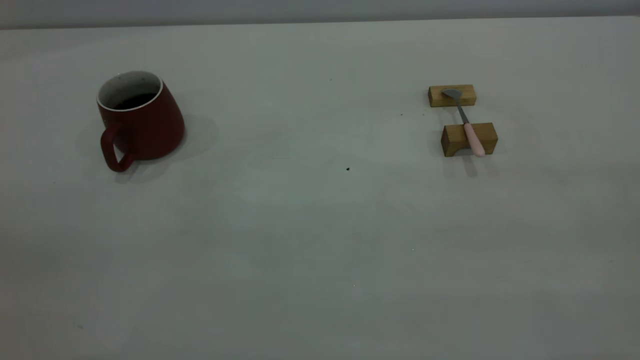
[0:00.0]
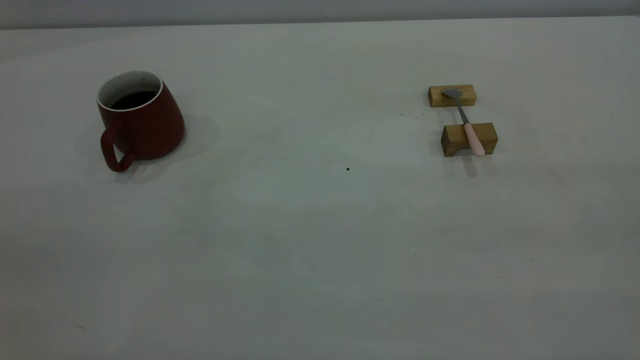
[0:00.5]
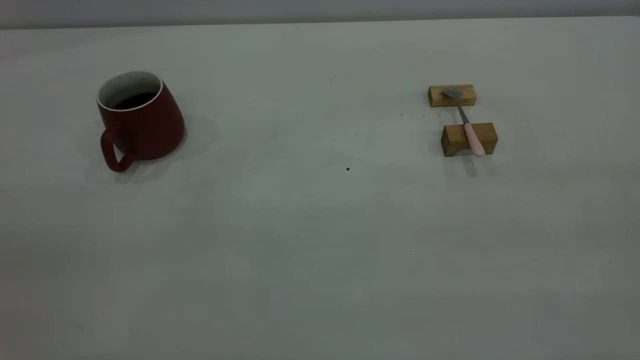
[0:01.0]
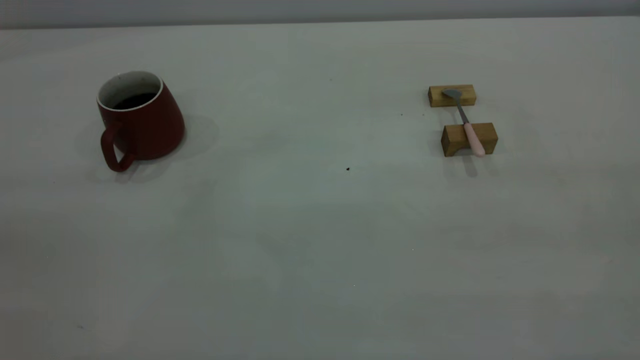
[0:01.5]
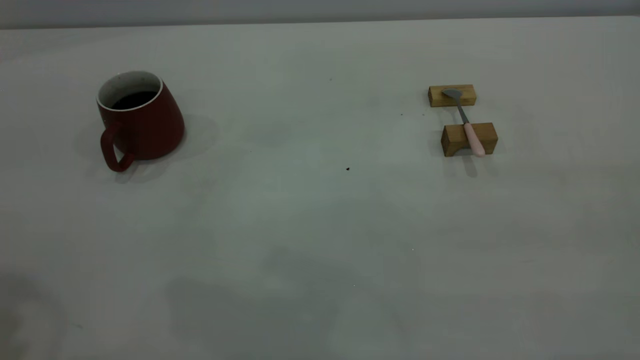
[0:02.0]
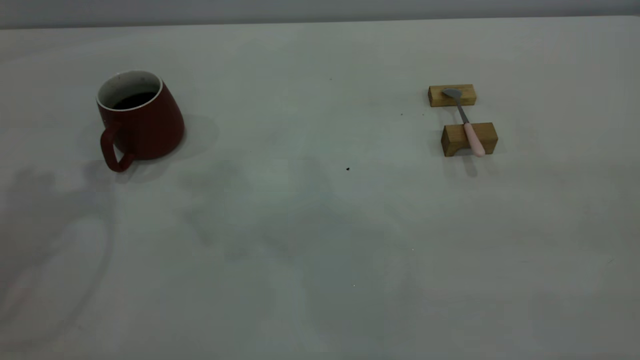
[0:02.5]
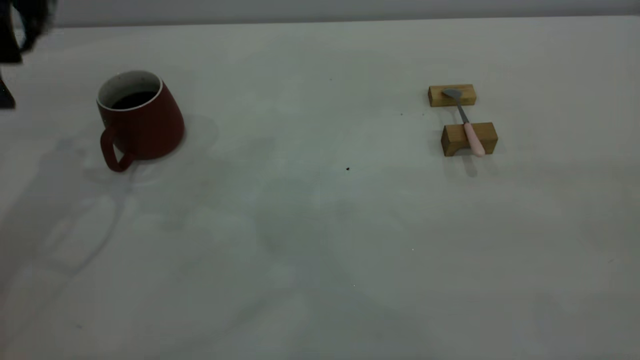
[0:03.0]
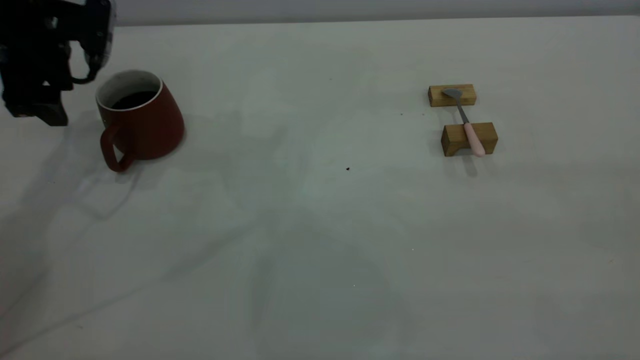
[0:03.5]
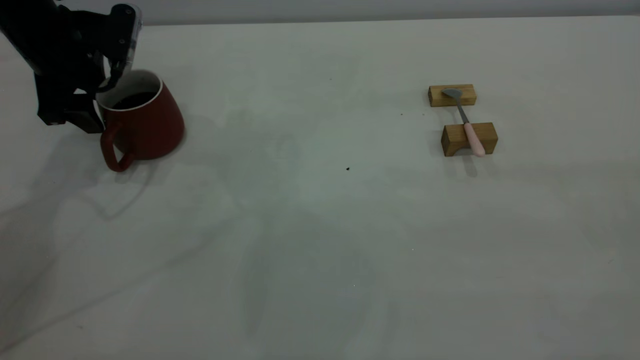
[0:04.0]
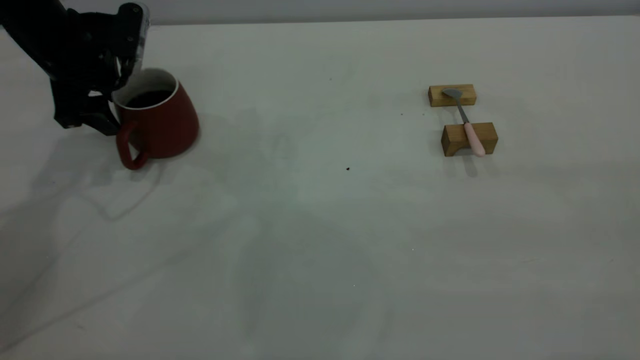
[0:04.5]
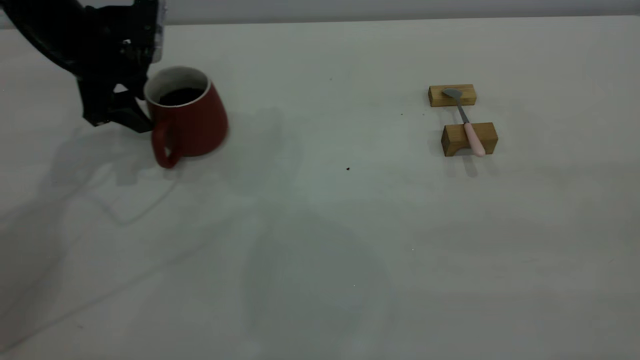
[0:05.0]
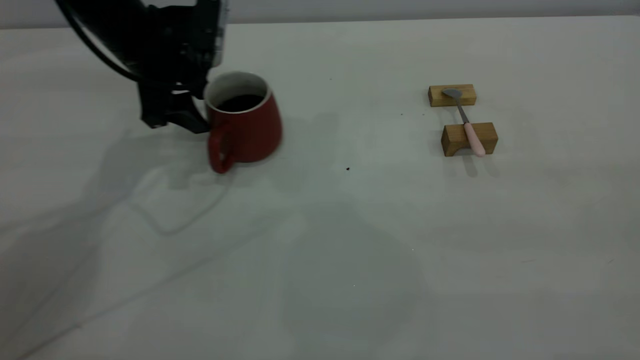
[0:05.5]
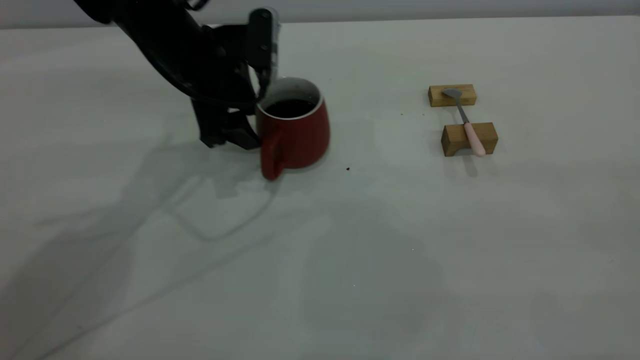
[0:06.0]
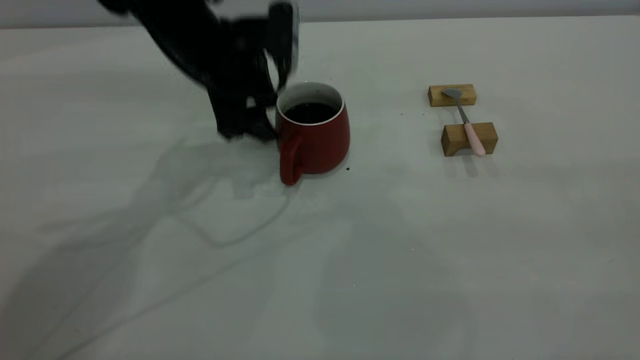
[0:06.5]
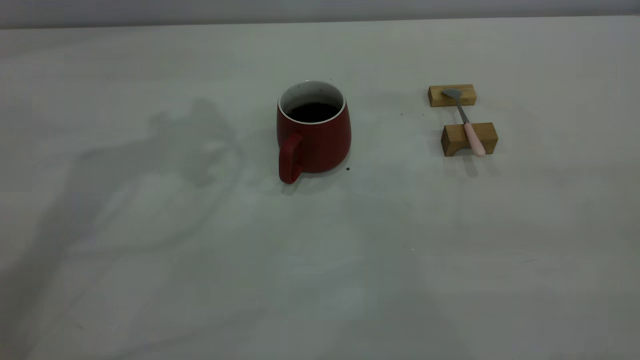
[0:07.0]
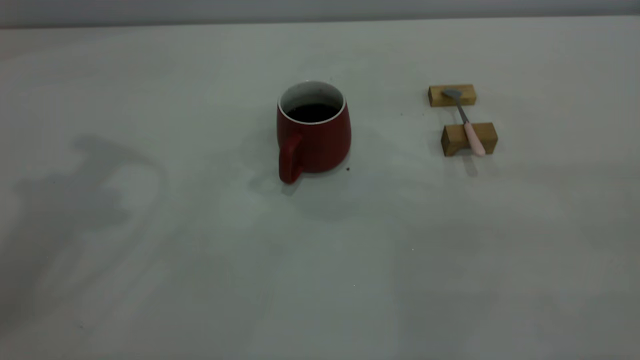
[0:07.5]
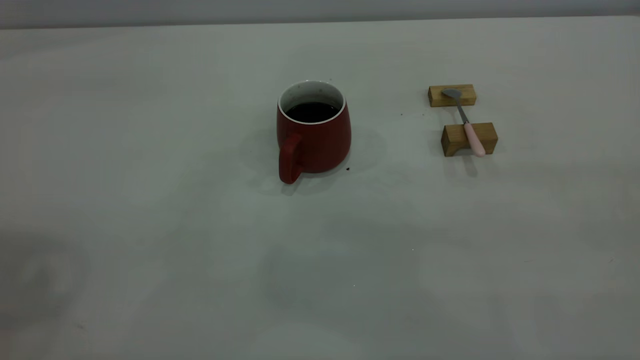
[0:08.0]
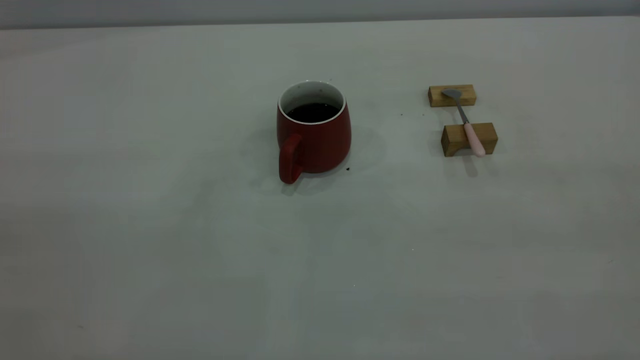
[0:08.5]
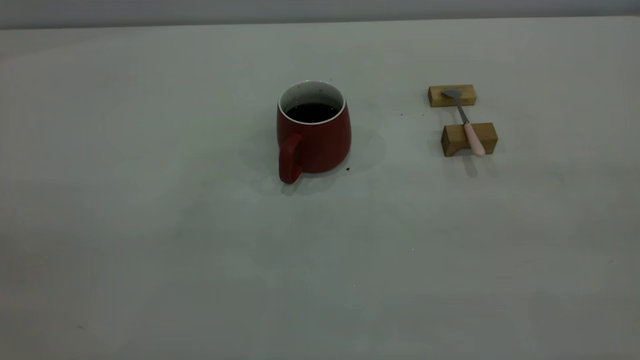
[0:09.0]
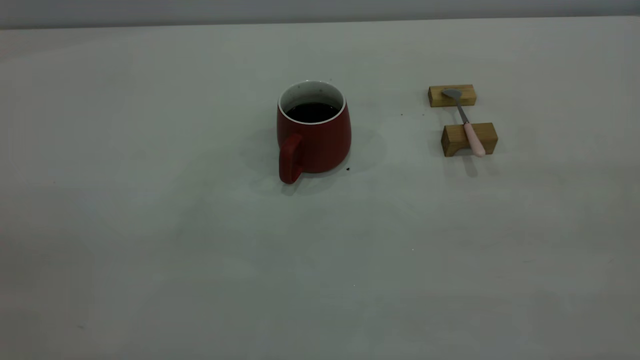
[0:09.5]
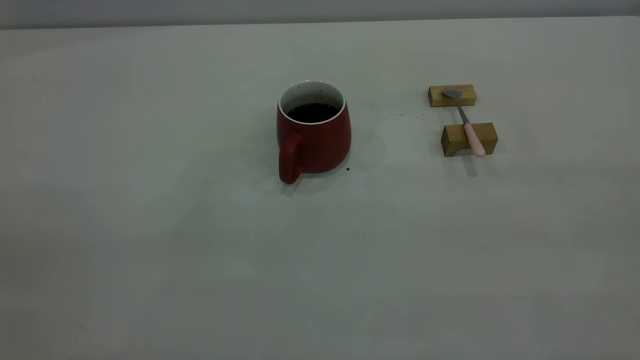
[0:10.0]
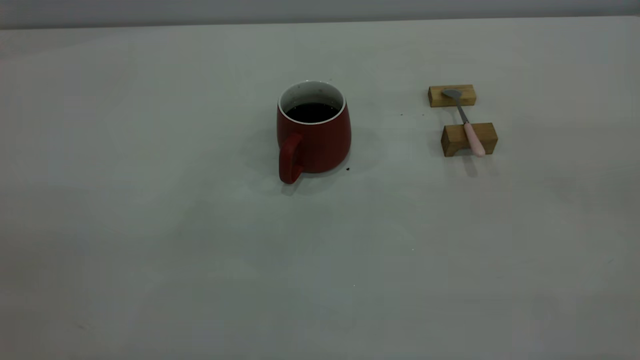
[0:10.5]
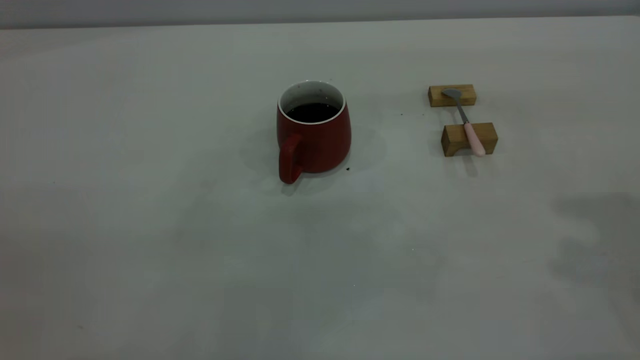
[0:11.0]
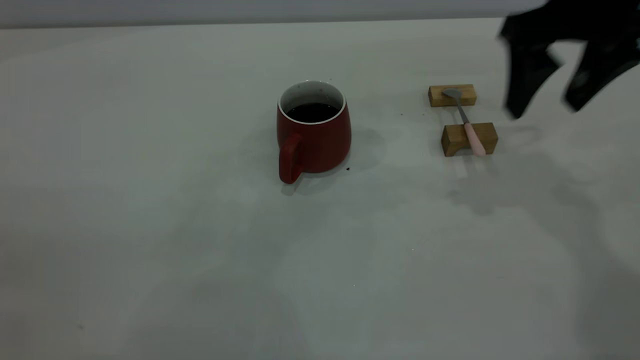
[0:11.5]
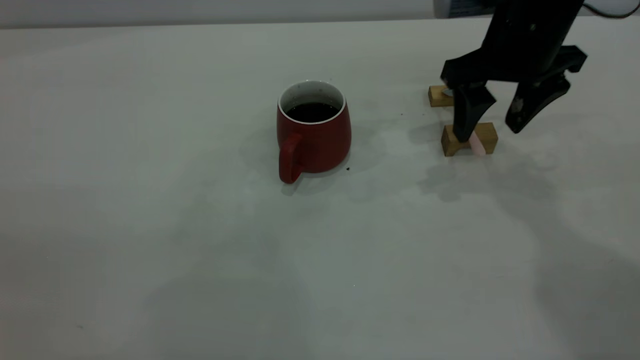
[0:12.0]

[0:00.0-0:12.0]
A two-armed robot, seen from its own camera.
Step, 0:00.0 to 0:06.5: Move the cup with coffee to the center of view.
0:02.0 to 0:04.0: The left gripper shifts approximately 35 cm forward and downward.
0:04.0 to 0:06.0: The left gripper moves to the right, some 15 cm.
0:06.0 to 0:08.0: The left gripper goes some 40 cm upward and backward.
0:10.0 to 0:12.0: The right gripper goes some 40 cm forward and downward, and opens.

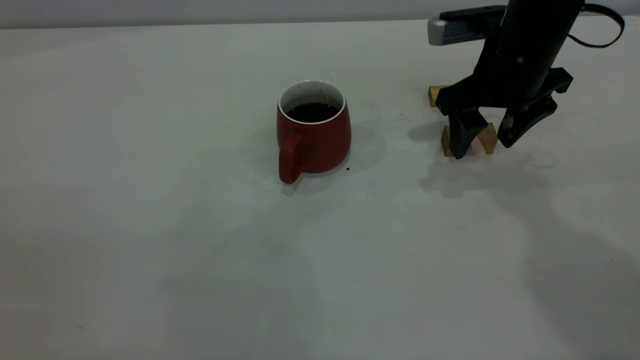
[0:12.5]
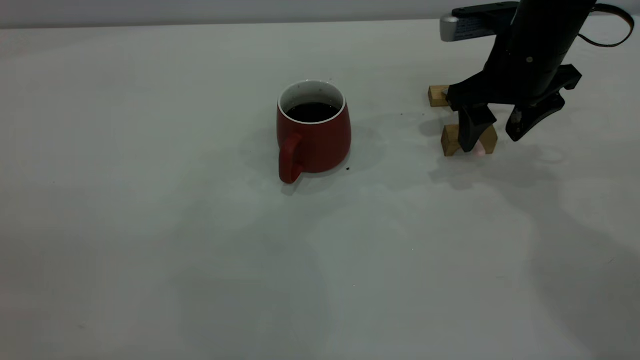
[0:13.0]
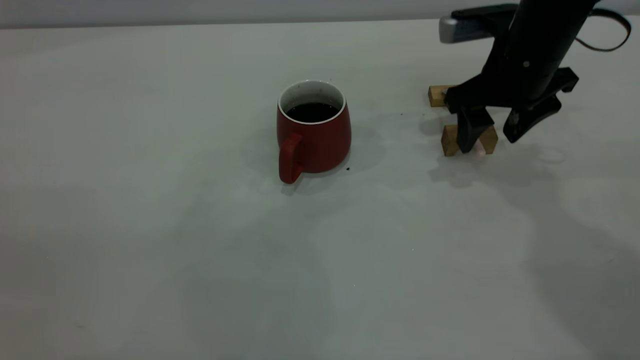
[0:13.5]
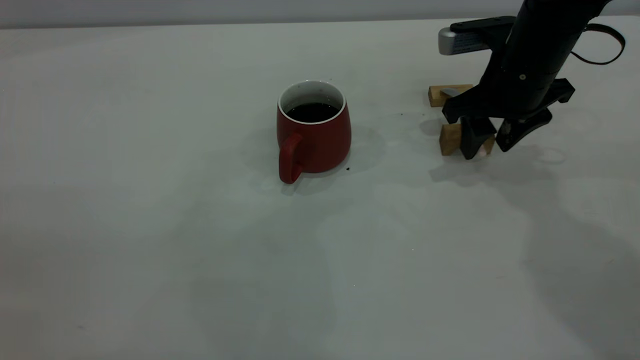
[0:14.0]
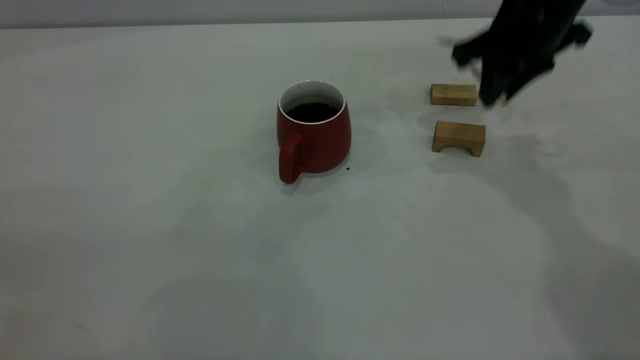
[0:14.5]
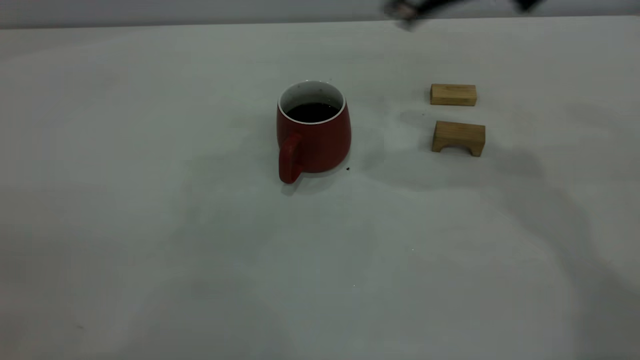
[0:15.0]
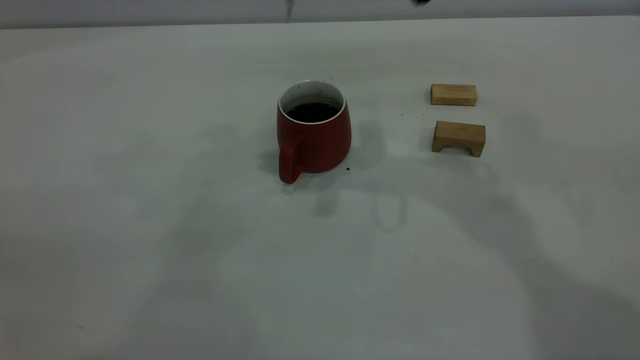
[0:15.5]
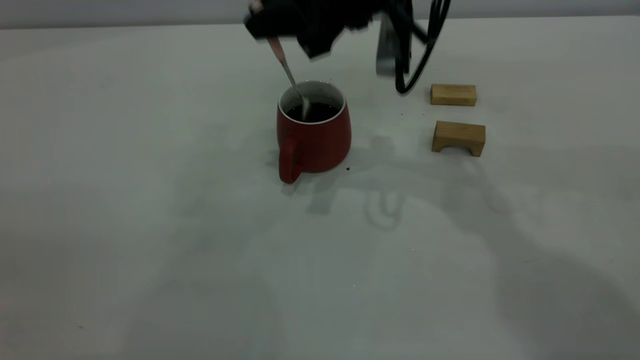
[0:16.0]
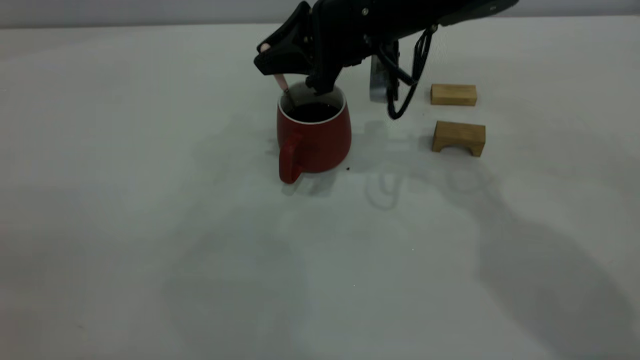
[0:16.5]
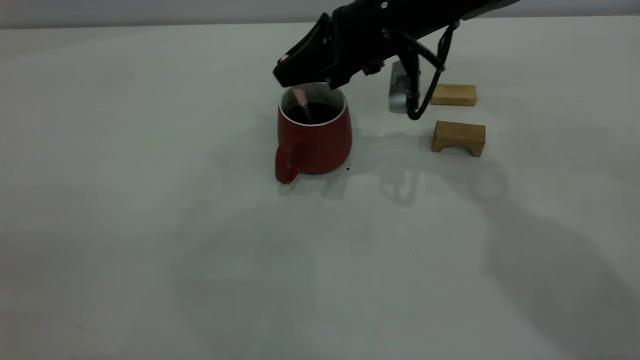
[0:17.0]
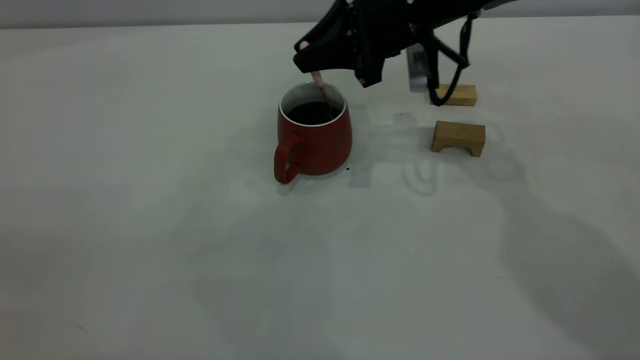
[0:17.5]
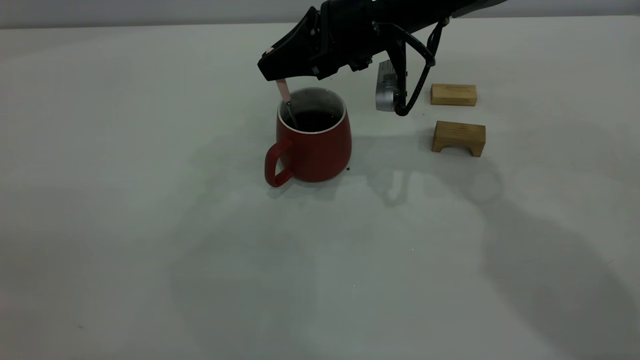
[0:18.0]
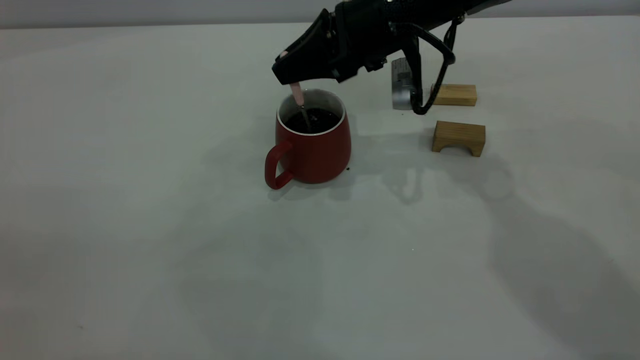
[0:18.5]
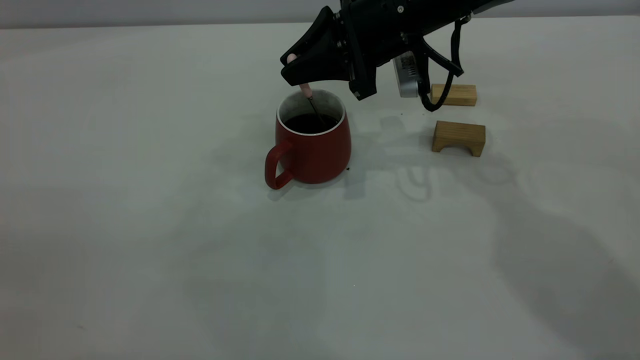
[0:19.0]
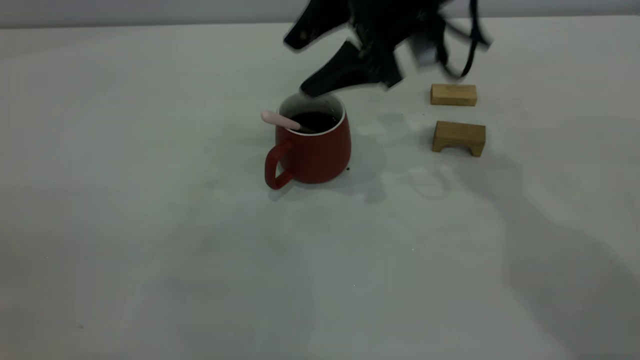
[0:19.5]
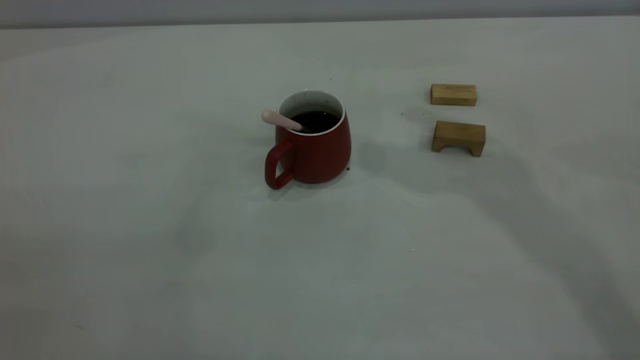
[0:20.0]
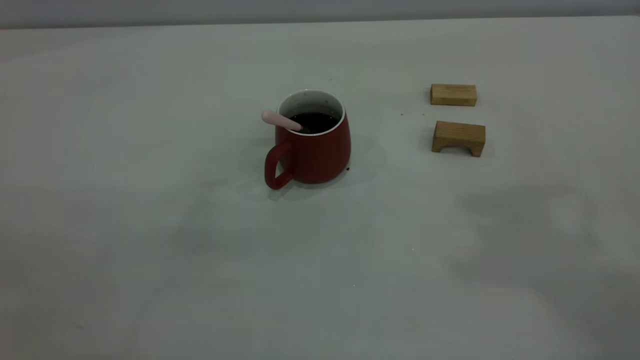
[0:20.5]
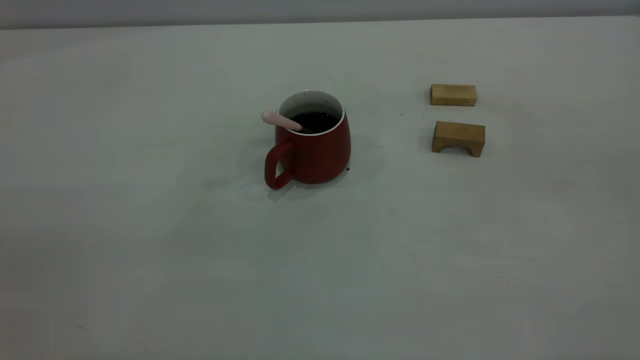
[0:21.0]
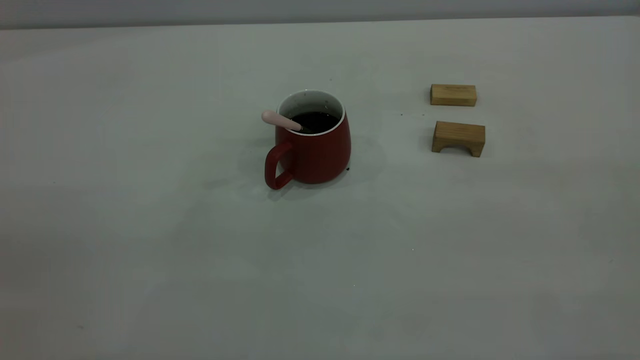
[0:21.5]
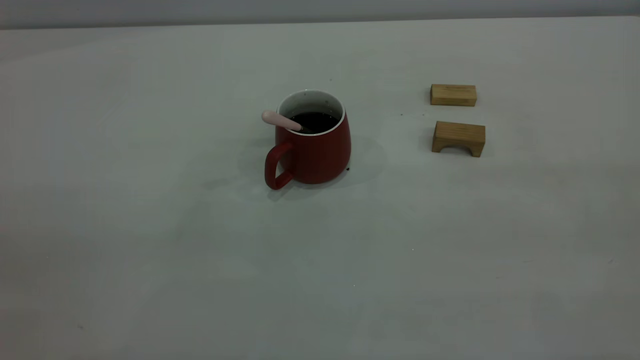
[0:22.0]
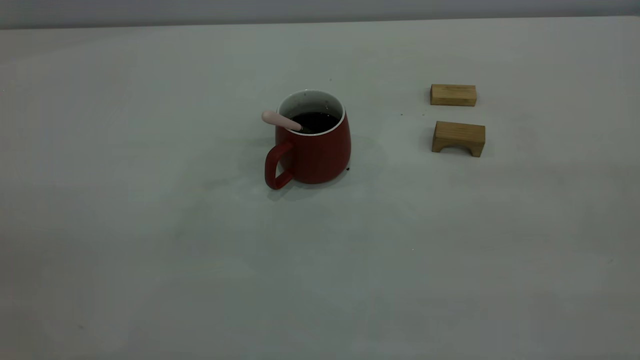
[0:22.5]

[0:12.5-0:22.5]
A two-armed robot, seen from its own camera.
Step, 0:14.5 to 0:19.0: Stir the coffee in the cup.
0:12.5 to 0:14.5: The right gripper travels upward by about 5 cm, and closes its fingers.
0:14.5 to 0:16.5: The right gripper goes roughly 15 cm to the left.
0:18.5 to 0:20.5: The right gripper moves upward and backward, about 40 cm, and opens and closes again.
